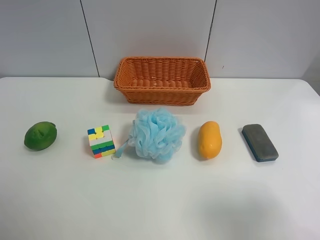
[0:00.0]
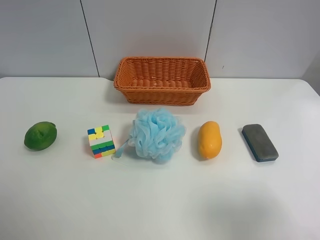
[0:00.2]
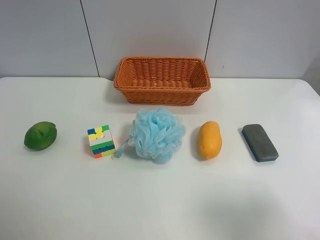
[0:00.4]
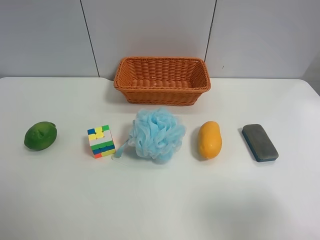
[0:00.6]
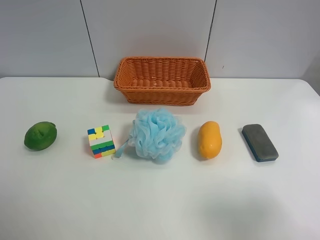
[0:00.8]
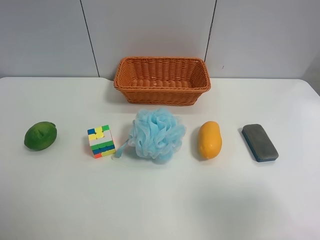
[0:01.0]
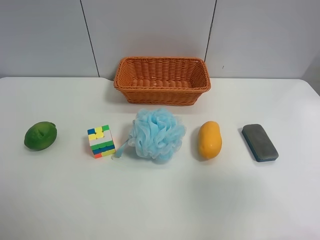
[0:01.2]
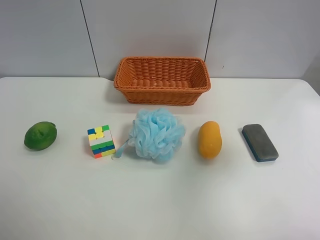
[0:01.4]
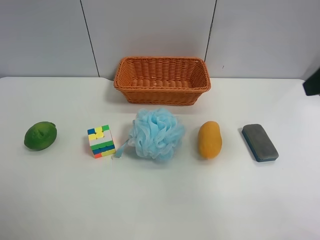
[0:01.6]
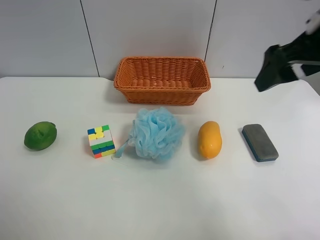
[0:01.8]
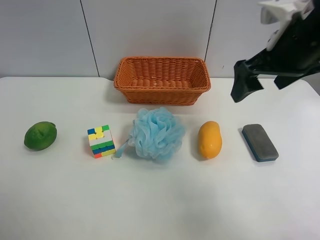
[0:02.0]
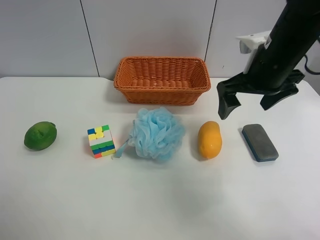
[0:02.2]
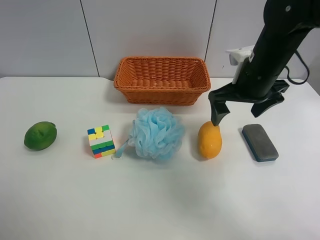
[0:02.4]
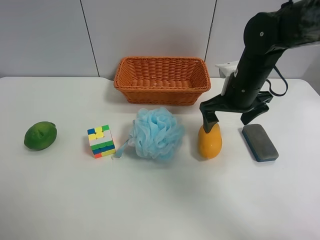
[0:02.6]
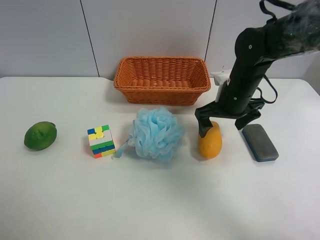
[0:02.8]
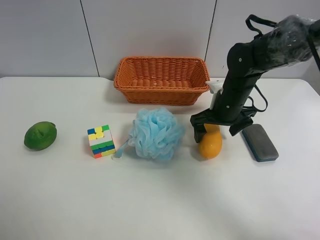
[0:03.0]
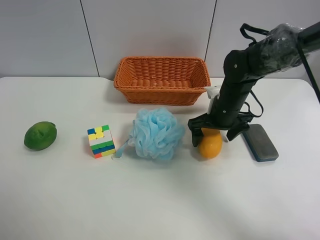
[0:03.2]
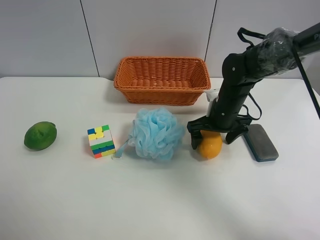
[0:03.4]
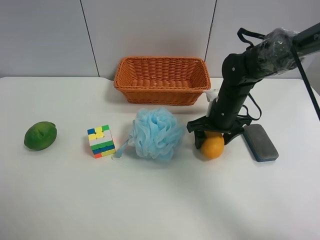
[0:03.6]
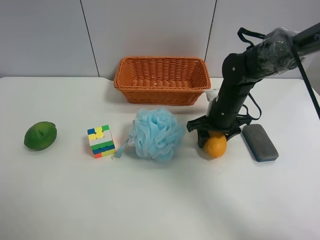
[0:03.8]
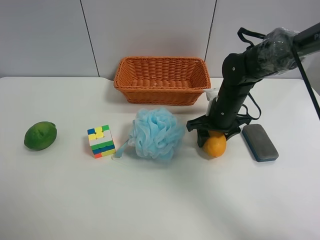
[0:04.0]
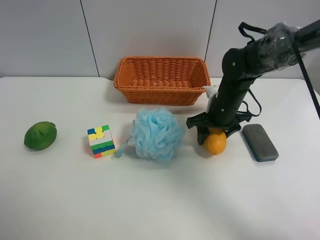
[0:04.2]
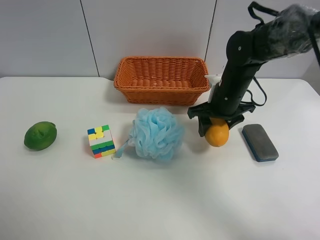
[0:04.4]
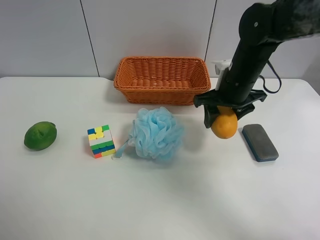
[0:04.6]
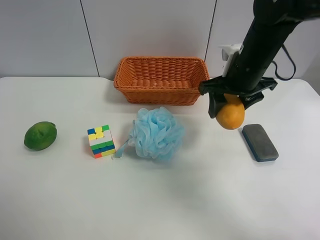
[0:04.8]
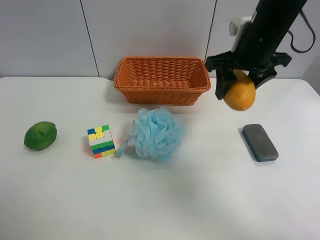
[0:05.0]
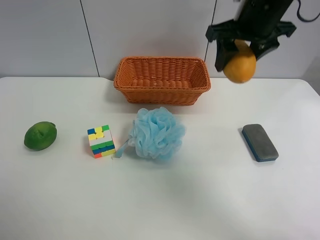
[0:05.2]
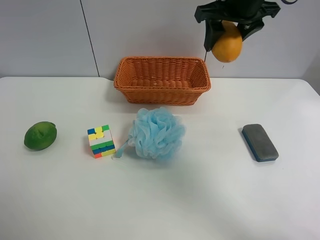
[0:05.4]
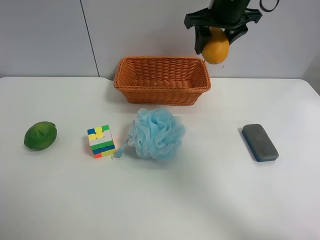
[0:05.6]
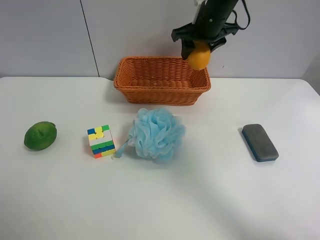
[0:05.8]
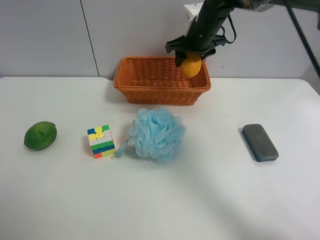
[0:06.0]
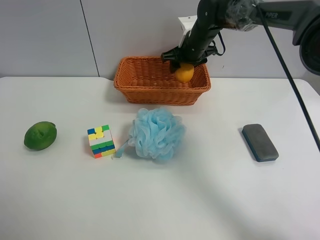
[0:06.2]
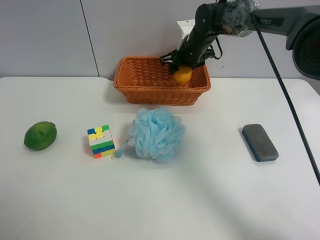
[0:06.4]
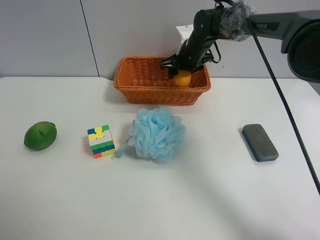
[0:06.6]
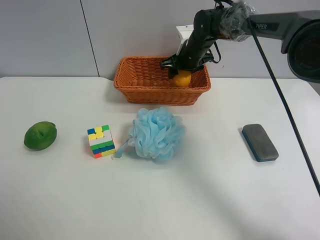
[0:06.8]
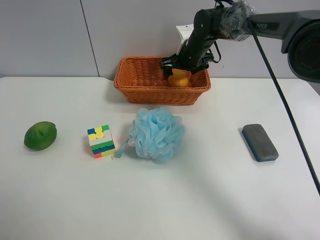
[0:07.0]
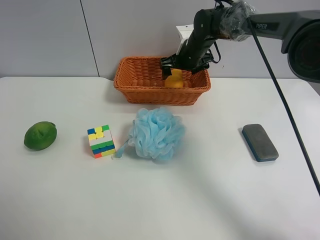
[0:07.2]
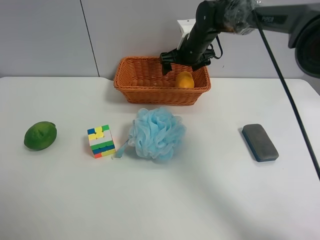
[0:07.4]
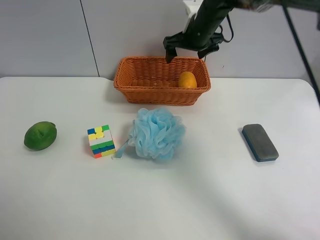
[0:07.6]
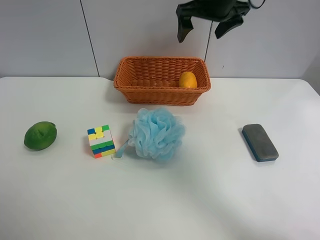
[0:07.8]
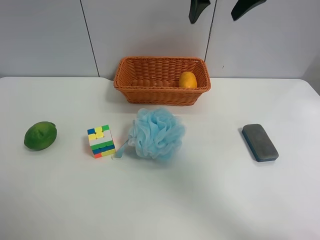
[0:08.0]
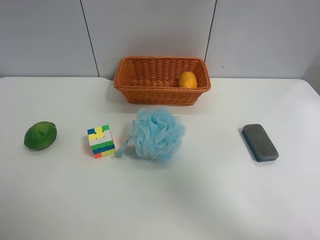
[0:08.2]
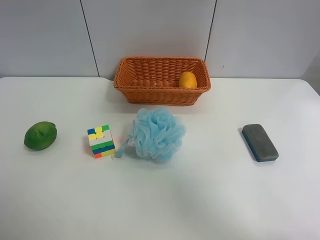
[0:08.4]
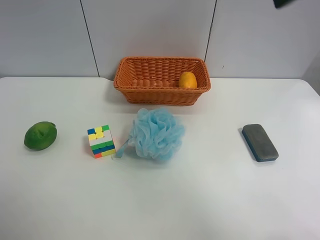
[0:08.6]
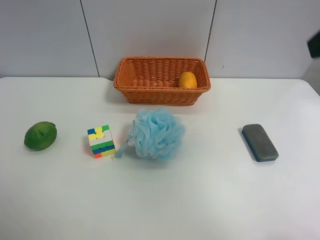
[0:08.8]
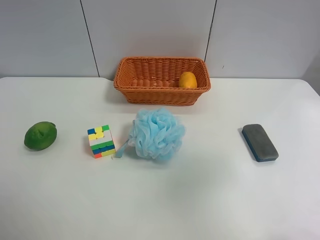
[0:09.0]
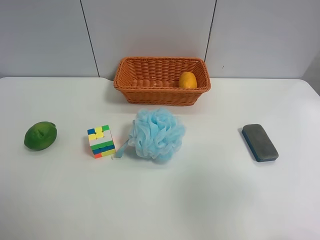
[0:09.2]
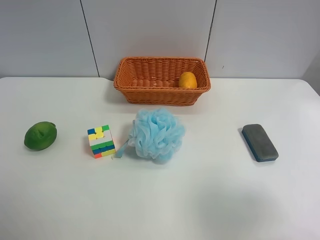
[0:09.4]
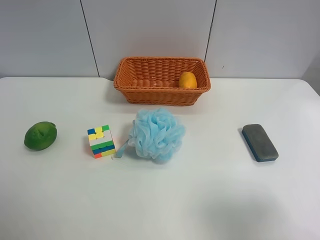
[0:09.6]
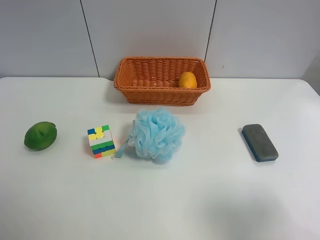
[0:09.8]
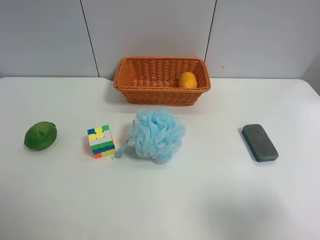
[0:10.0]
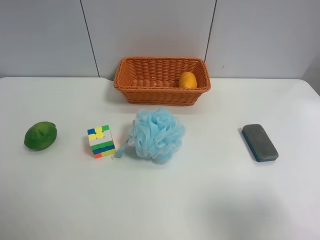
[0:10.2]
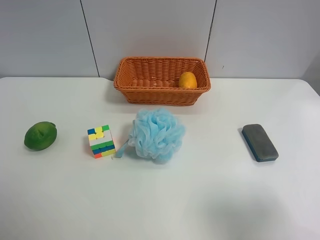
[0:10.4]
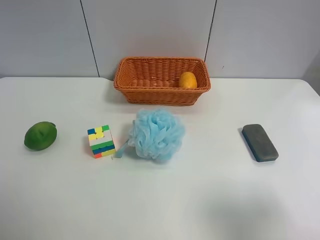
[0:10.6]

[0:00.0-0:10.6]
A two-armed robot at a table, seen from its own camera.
Task of the whole recording: Randomly grab green lemon or mangoes from the table and put them in a basket.
Step, 0:00.0 to 0:03.8: Grasp the mango with the right gripper.
Step, 0:04.0 to 0:07.6: Place the mango into the basket with the right gripper.
0:00.0 to 0:01.6: The right gripper is displaced forward and upward by about 20 cm.
0:01.6 to 0:03.0: The right gripper travels downward, forward and to the left by about 30 cm.
0:03.0 to 0:04.6: The right gripper travels upward by about 5 cm, and closes up.
0:04.6 to 0:06.0: The right gripper heads forward, covering about 15 cm.
0:06.0 to 0:07.6: The right gripper goes downward and returns, some 5 cm each way, and opens its fingers.
0:07.6 to 0:09.0: The right gripper goes about 40 cm backward.
0:09.0 to 0:10.6: The right gripper moves downward and backward, about 10 cm.
